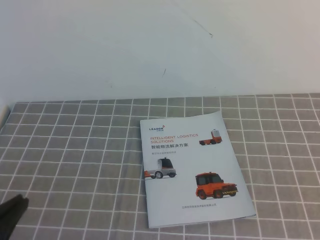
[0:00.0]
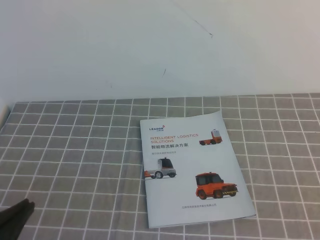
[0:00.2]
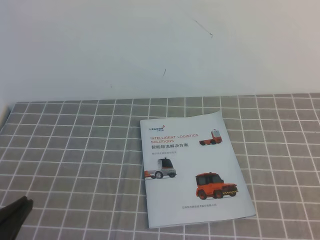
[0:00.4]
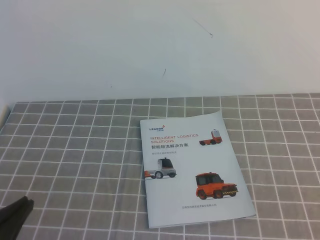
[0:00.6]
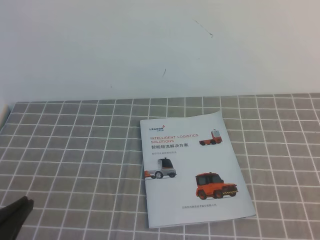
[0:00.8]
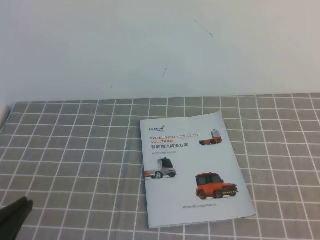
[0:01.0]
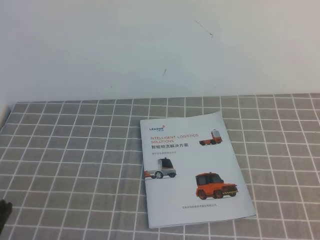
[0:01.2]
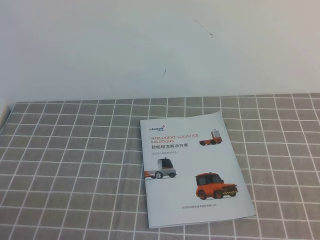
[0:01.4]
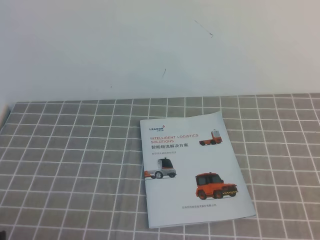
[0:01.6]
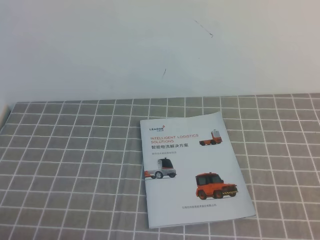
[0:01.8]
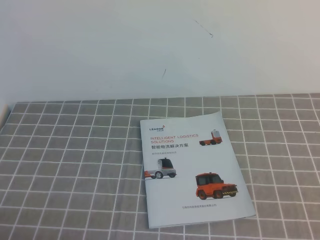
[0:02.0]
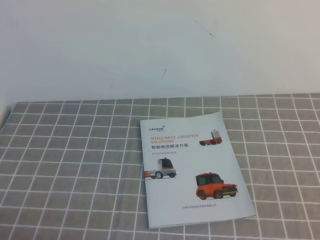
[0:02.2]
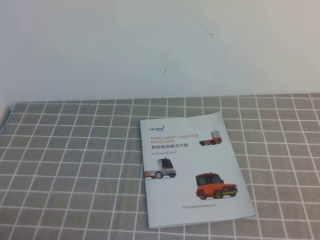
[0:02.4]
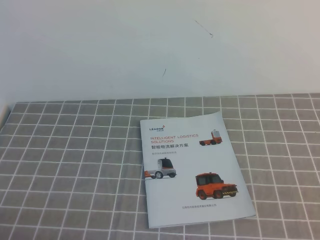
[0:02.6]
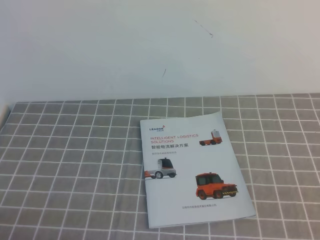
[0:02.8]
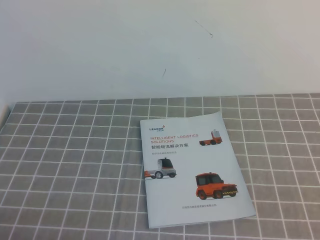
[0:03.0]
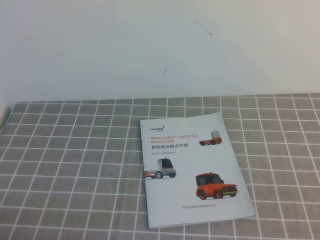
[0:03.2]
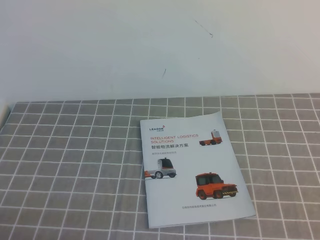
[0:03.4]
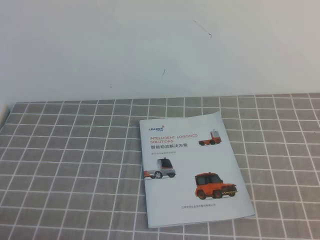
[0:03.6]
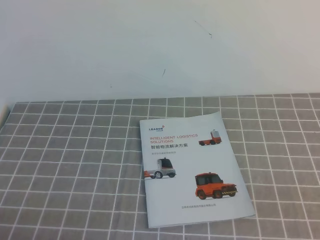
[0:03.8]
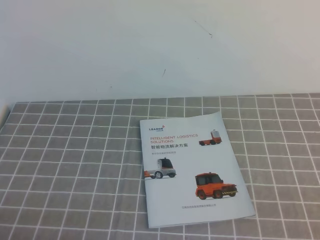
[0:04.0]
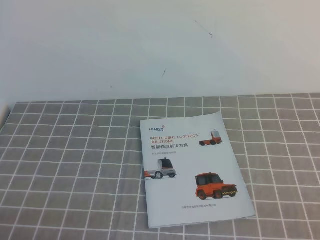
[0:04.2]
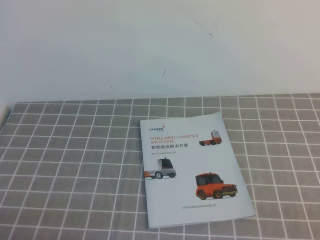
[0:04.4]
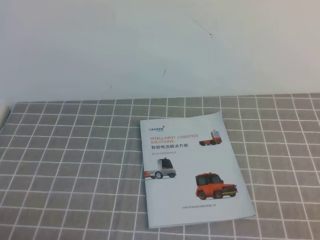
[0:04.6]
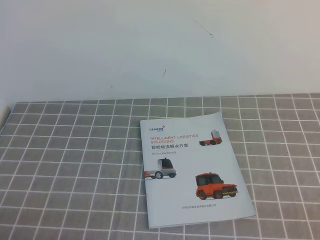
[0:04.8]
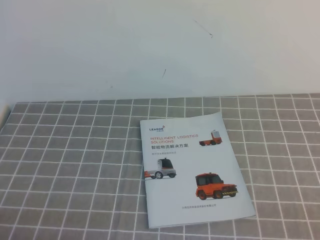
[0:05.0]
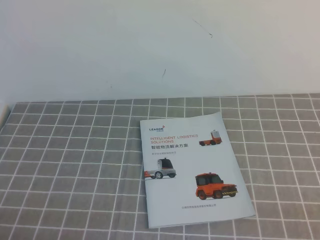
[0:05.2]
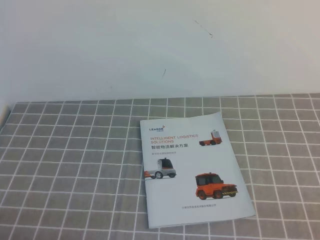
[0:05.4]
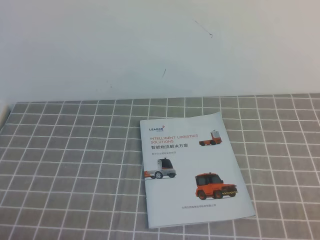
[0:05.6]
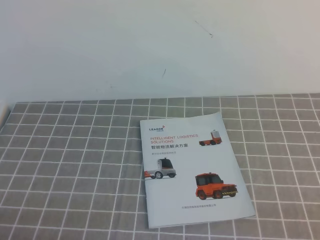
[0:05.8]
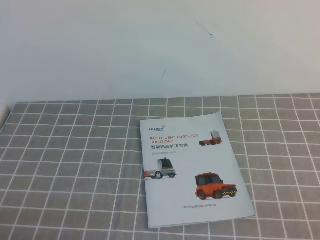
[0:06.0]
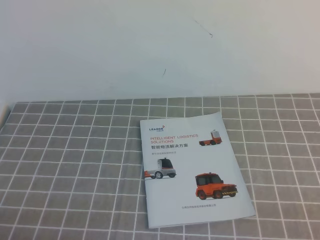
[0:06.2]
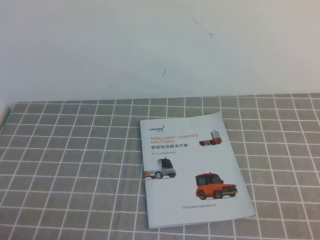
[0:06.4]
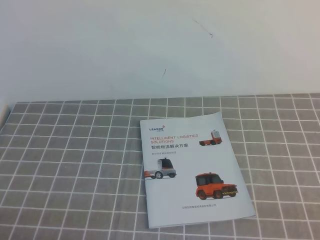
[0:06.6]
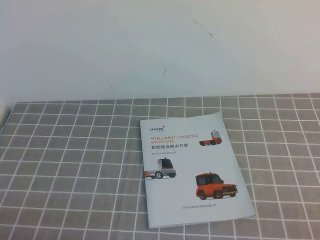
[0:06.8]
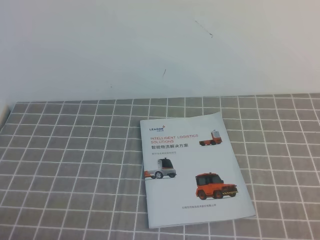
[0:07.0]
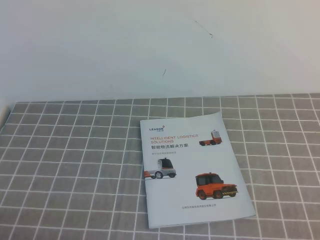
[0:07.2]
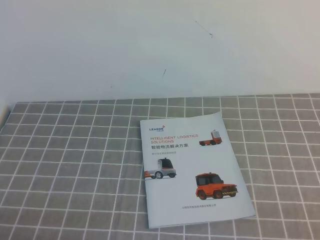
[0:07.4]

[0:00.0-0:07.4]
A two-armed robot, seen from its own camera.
Task of the whole recording: on the grey tablecloth, hold the book with one hand and close it with the other.
Step, 0:00.0 to 0:07.4: Close the open book.
0:00.0 to 0:01.4: The left gripper heads downward, covering some 5 cm.
